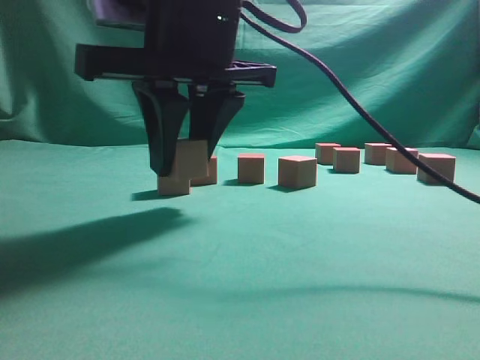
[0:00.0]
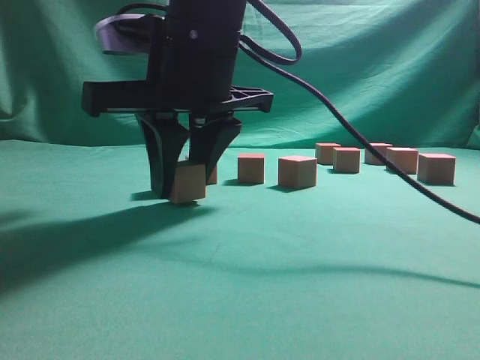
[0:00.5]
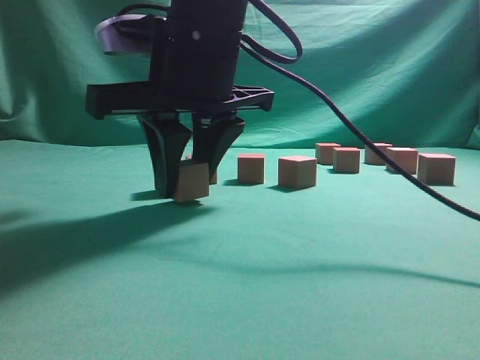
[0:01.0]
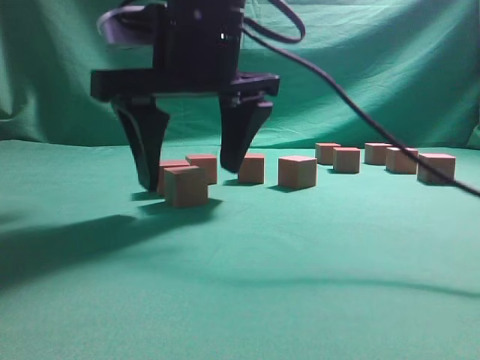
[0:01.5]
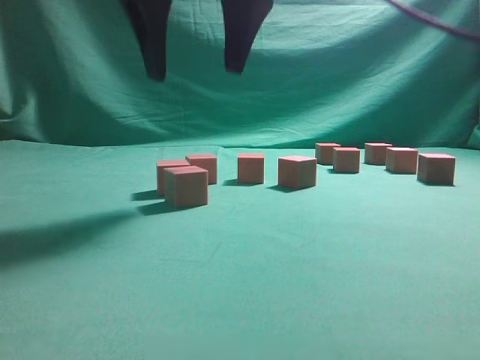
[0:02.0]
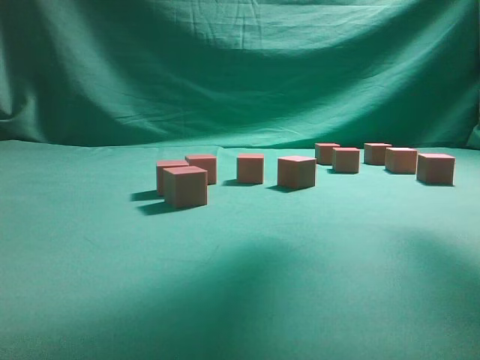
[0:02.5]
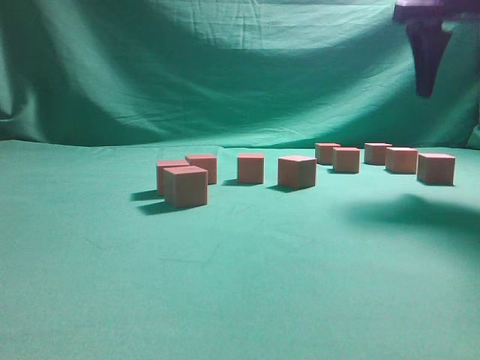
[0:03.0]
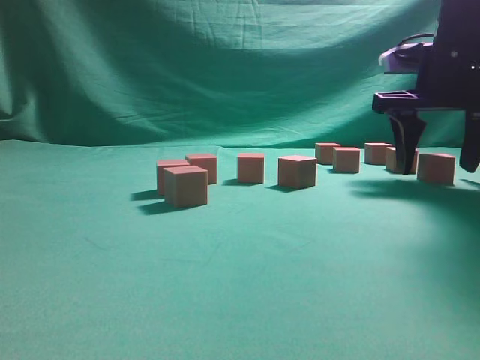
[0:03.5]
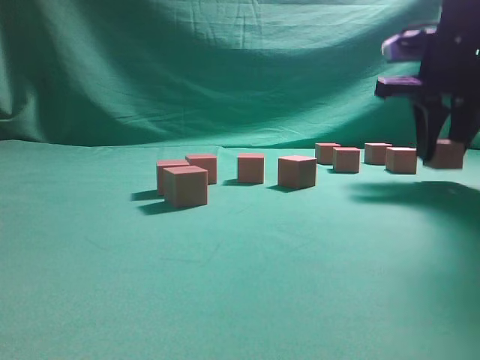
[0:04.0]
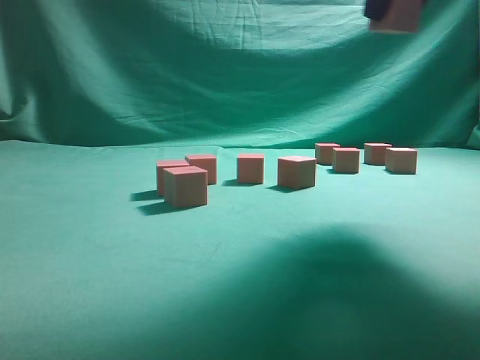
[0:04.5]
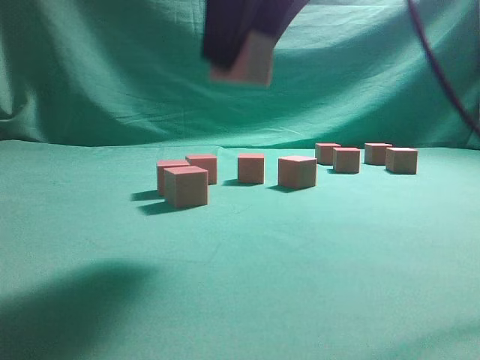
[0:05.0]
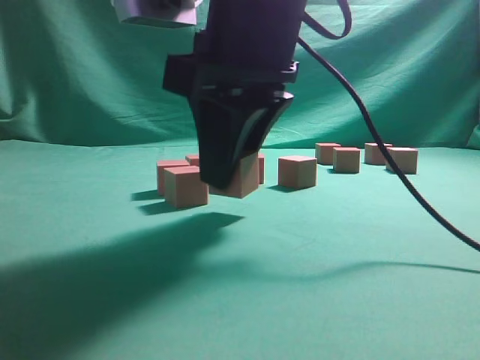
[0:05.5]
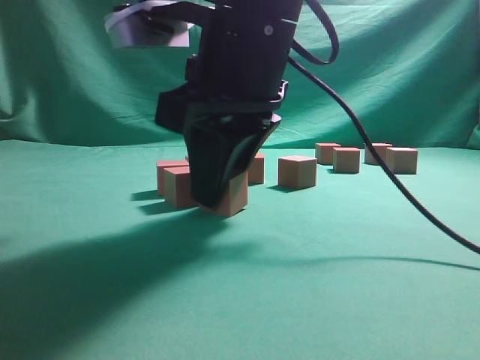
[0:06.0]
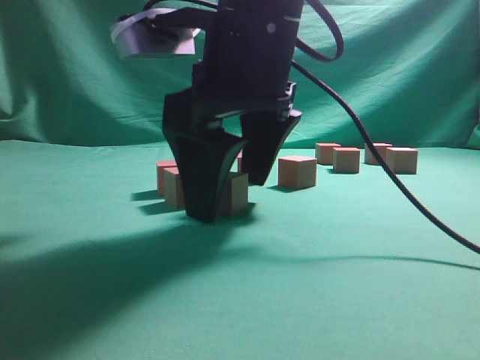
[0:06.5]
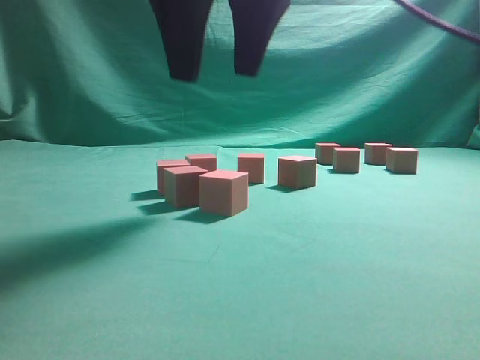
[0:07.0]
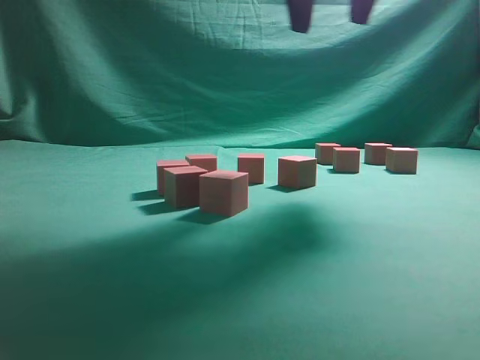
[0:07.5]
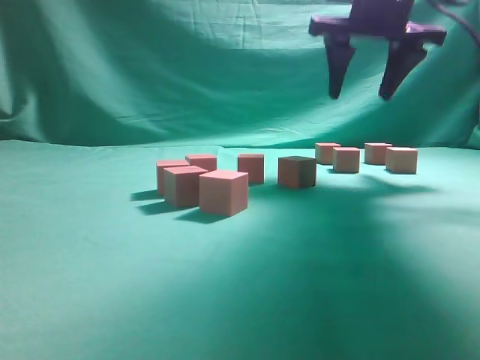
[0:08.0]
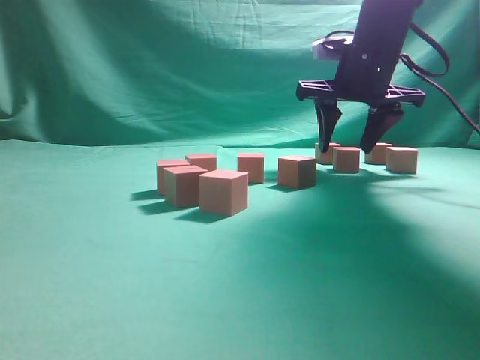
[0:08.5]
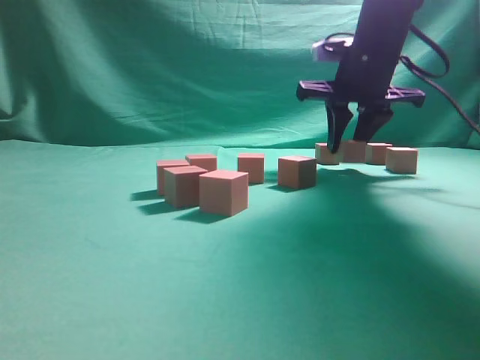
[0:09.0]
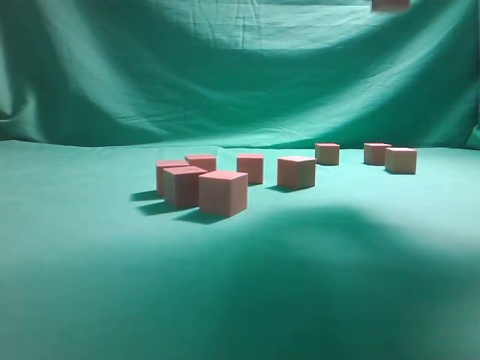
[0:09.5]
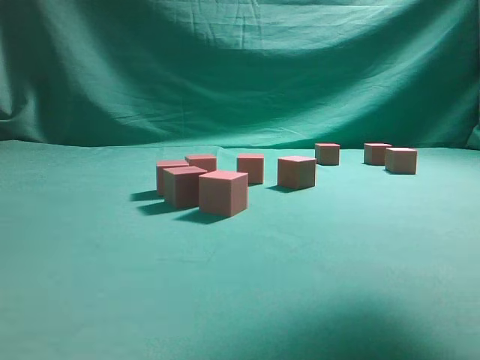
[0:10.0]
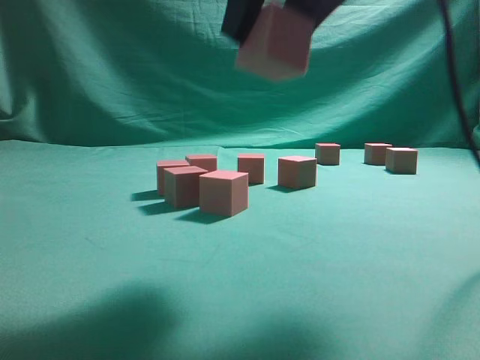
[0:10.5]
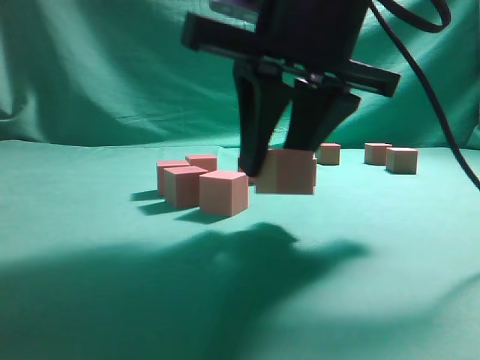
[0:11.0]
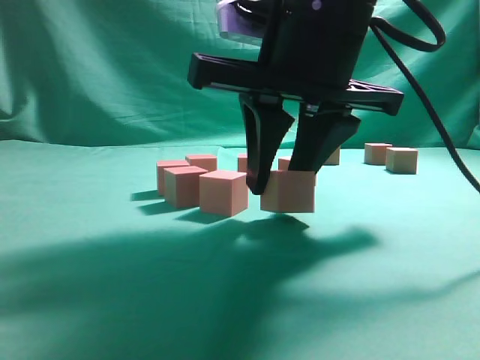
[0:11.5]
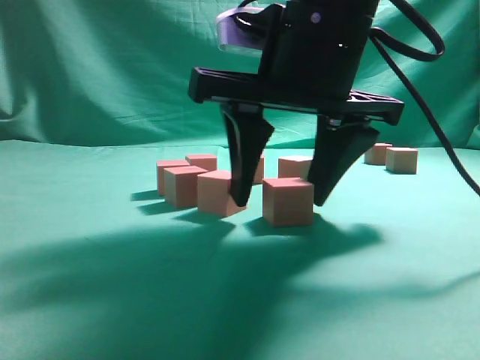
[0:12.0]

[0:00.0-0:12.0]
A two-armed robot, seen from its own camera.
Task of the whole recording: pick up the multiple cubes in two columns one by one and place them in another position on the table.
Step, 0:00.0 to 0:01.5: Place the block at the correct position to assemble the letter S.
Step, 0:02.0 to 0:04.0: Pick up the block on the table.
Step, 0:04.5 to 0:06.5: Place the block at the correct position to assemble the letter S.
Step, 0:07.0 to 0:09.0: Pick up the block on the table.
0:00.0 to 0:02.0: The right gripper goes some 10 cm upward, and opens.
0:02.0 to 0:04.0: The right gripper shifts about 25 cm to the right, and closes up.
0:04.0 to 0:06.0: The right gripper goes roughly 25 cm to the left and backward.
0:06.0 to 0:08.0: The right gripper travels forward, to the right and upward by approximately 25 cm, and opens.
0:08.0 to 0:10.0: The right gripper shifts about 20 cm backward and upward, and closes its fingers.
0:10.0 to 0:12.0: The right gripper is displaced downward and to the left by about 20 cm, and opens its fingers.

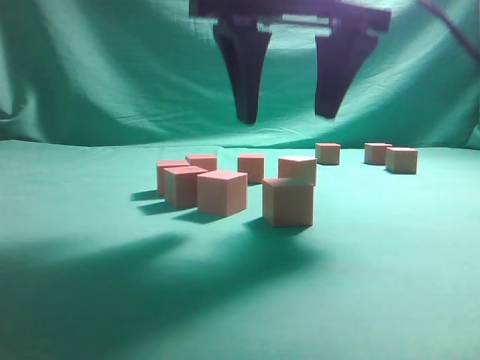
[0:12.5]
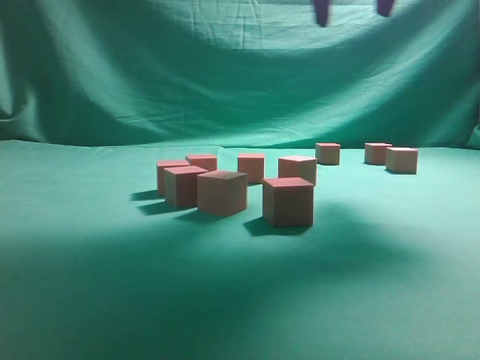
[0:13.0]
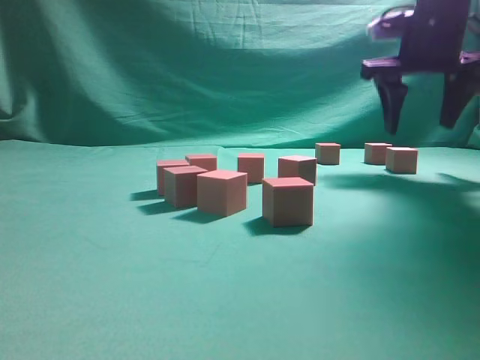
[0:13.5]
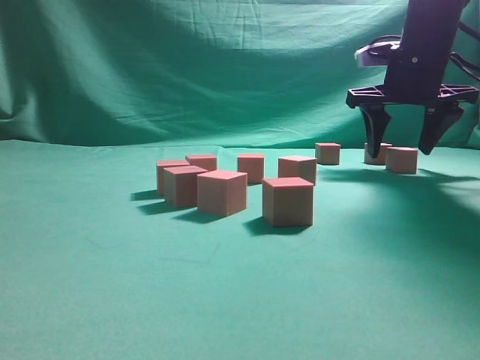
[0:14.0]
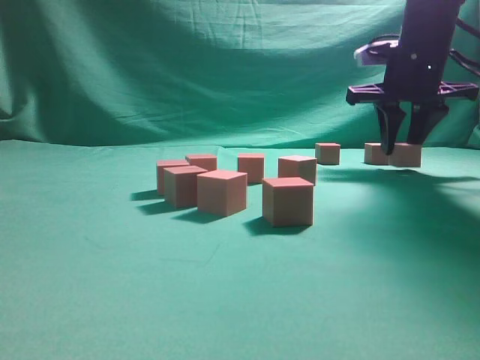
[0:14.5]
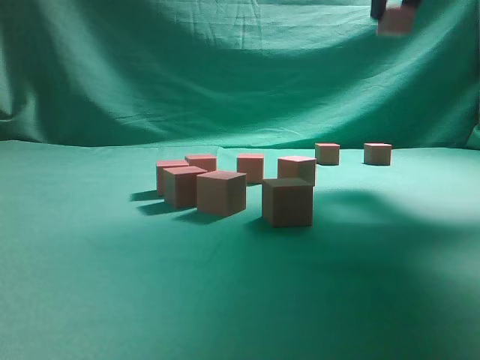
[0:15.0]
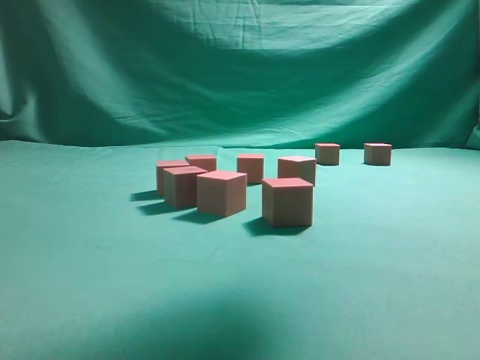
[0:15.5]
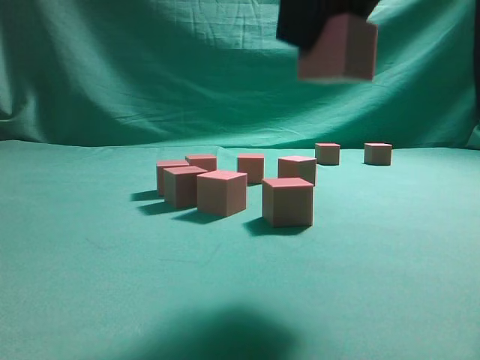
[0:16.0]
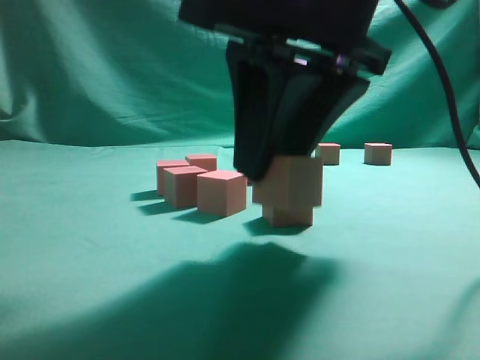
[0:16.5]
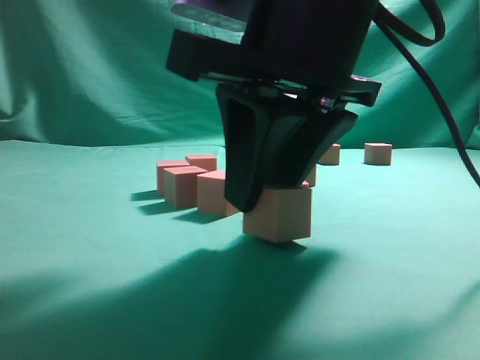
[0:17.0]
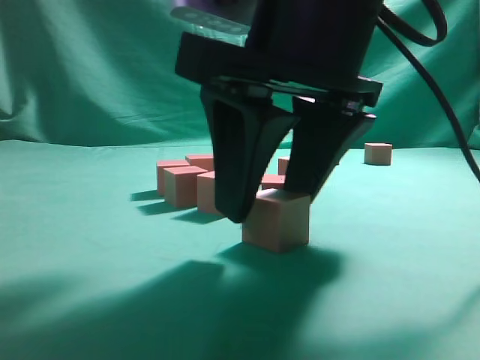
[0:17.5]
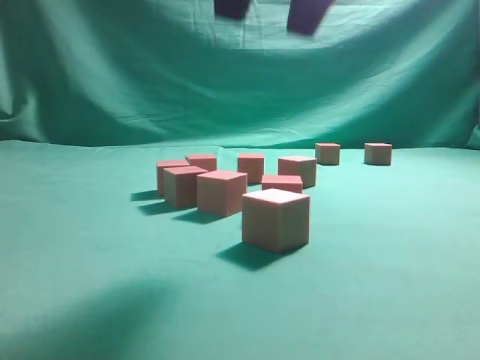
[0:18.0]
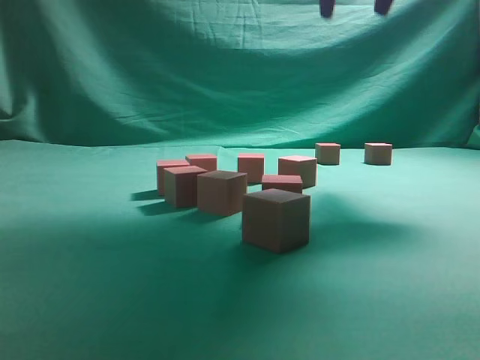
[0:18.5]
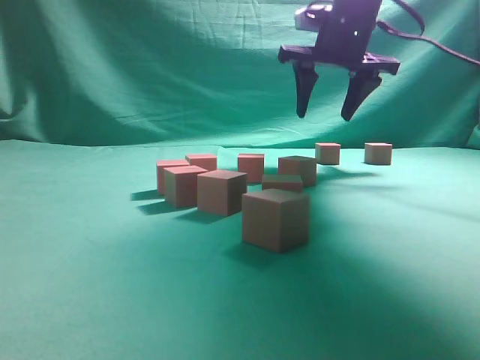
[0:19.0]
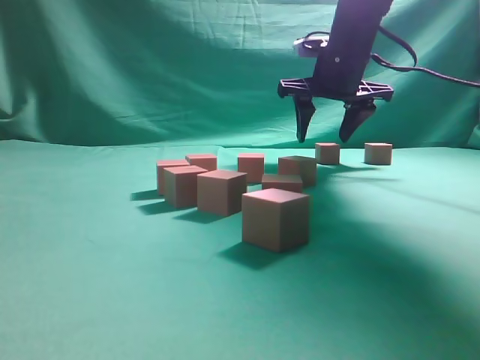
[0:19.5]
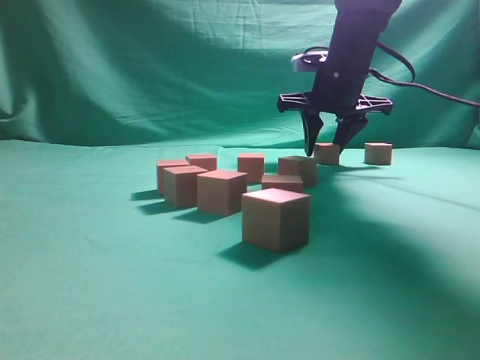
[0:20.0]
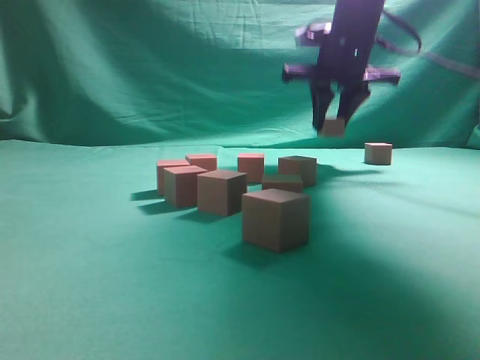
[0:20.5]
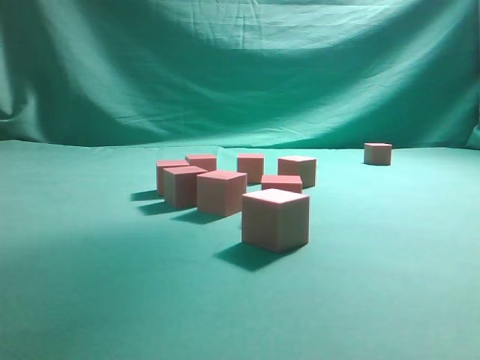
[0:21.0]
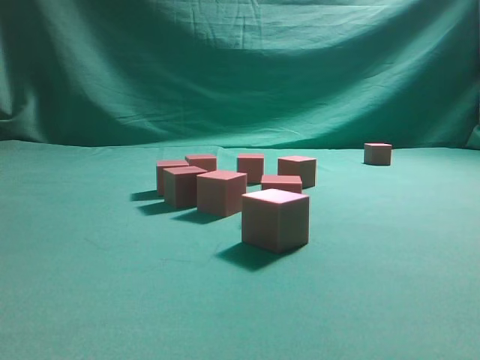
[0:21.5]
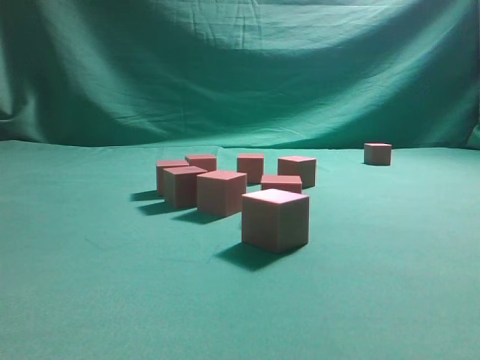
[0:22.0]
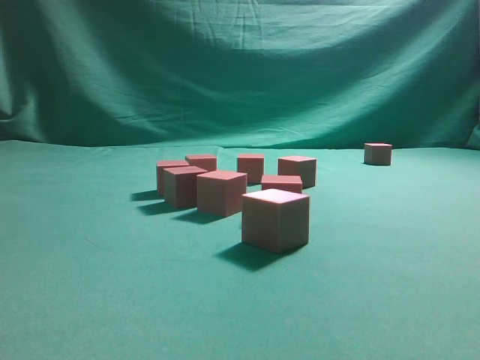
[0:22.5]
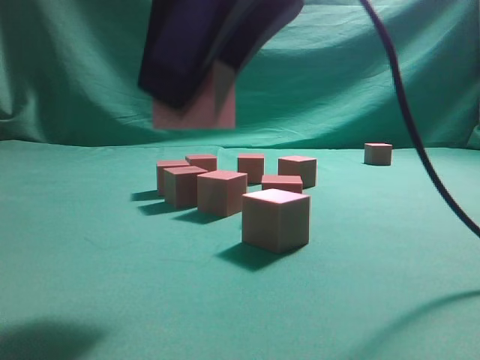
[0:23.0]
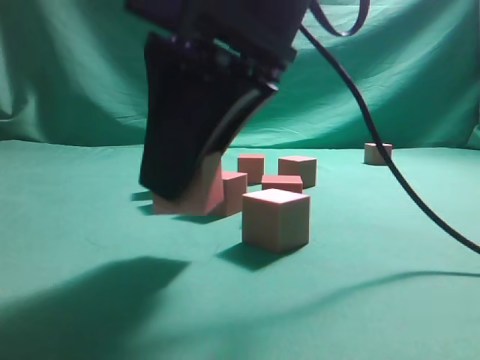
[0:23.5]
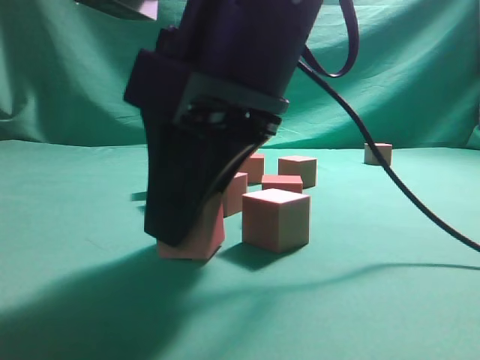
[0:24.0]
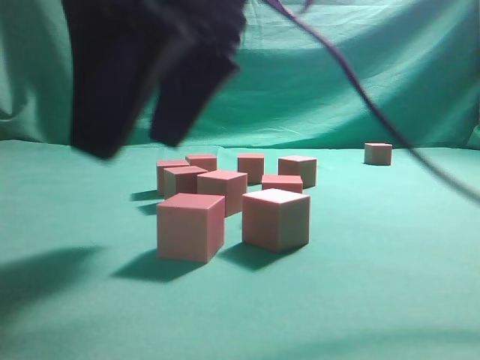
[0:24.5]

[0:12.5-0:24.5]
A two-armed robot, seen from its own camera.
Task of the whole recording: pick up the multiple cubes in two columns one by one and place them in another position on the table.
Step, 0:13.0 to 0:14.5: Pick up the block on the table.
Step, 0:15.0 to 0:17.5: Place the block at the correct position to assemble the letter S.
Step, 0:18.0 to 0:20.0: Pick up the block on the table.
Step, 0:21.0 to 0:24.5: Place the block at the correct position to assemble the letter S.
0:12.5 to 0:14.5: The right gripper goes some 25 cm forward and to the right, and closes.
0:14.5 to 0:16.5: The right gripper moves backward and to the left, roughly 30 cm.
0:16.5 to 0:18.5: The right gripper goes some 25 cm forward, upward and to the right.
0:18.5 to 0:20.5: The right gripper heads downward and forward, covering about 15 cm, and closes.
0:20.5 to 0:22.5: The right gripper goes about 35 cm backward.
0:22.5 to 0:24.5: The right gripper heads to the left, downward and forward, covering approximately 15 cm, and opens up.

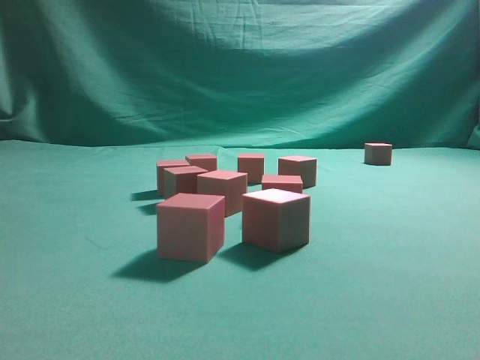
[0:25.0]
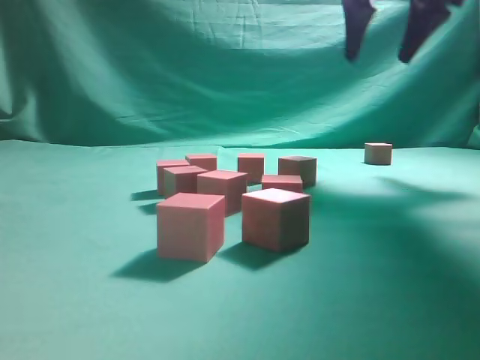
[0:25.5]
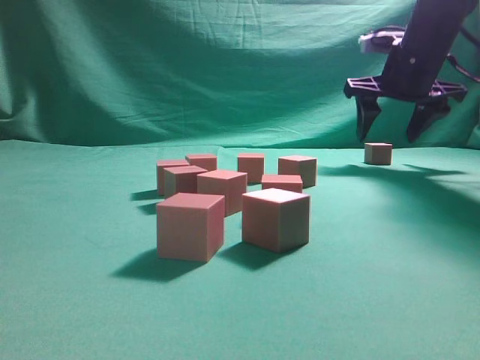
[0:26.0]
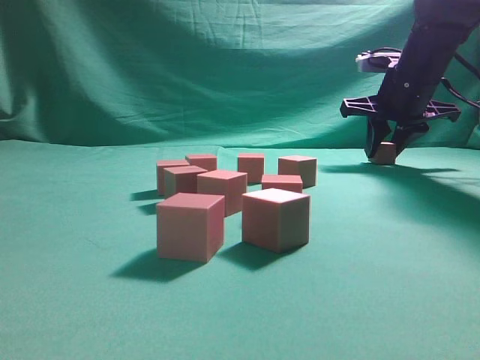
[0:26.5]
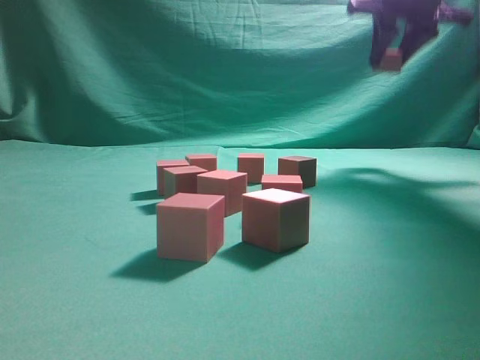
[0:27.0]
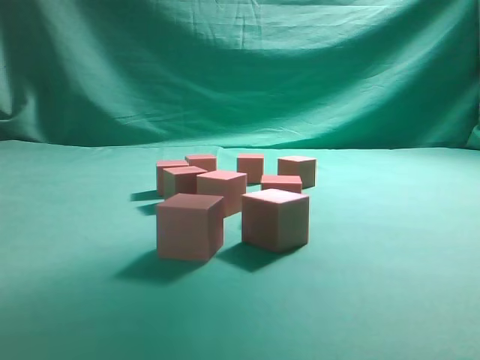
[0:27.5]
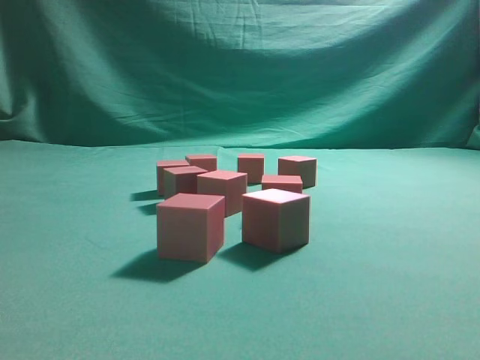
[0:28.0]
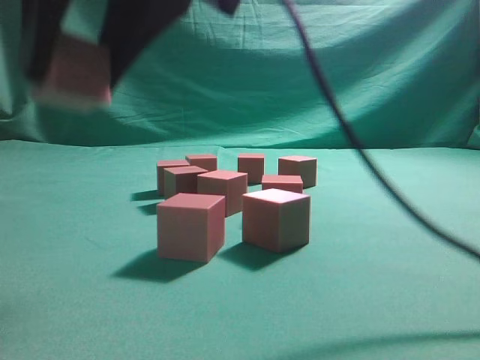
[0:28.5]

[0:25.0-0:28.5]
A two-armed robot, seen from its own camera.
Task of the whole recording: pick up the multiple cubes in two columns one by one and place them in another position on the table.
Step, 0:25.0 to 0:26.5: Pick up the block on the table.
0:25.0 to 0:27.0: The right gripper is displaced to the right and forward by roughly 30 cm, and closes its fingers.
0:27.0 to 0:28.5: The right gripper is displaced backward and to the left by some 35 cm.
